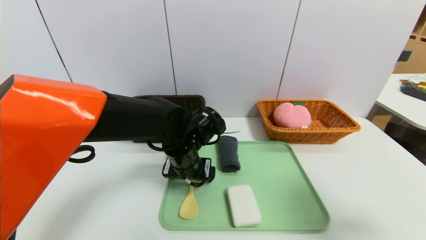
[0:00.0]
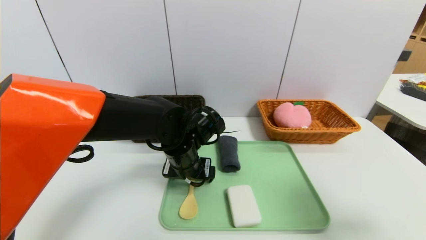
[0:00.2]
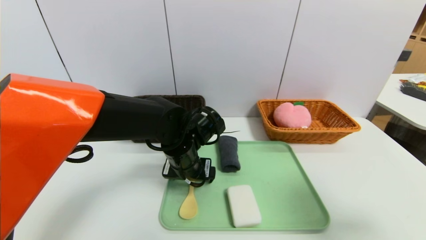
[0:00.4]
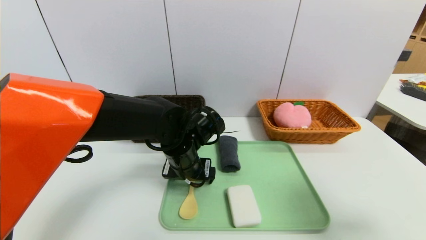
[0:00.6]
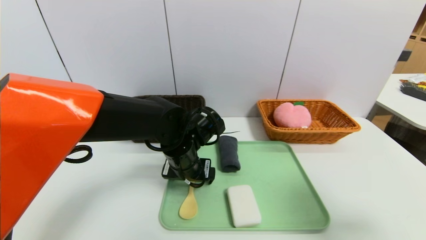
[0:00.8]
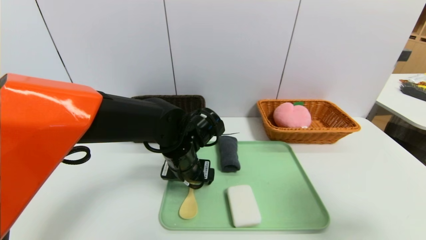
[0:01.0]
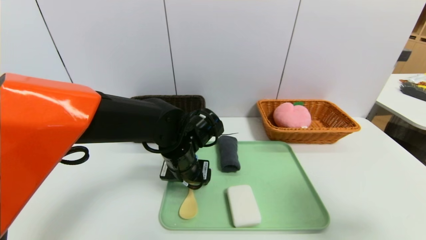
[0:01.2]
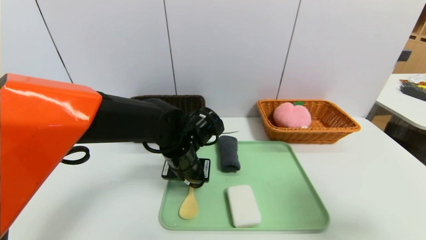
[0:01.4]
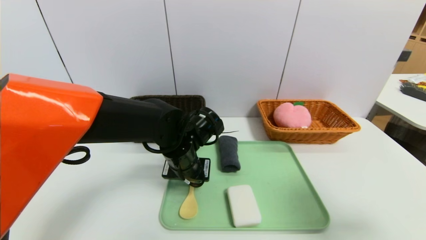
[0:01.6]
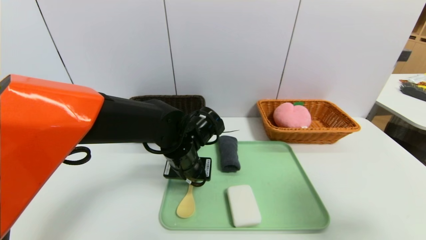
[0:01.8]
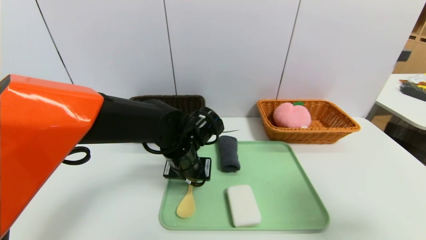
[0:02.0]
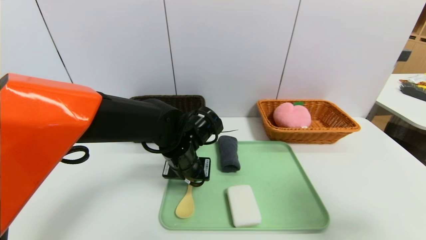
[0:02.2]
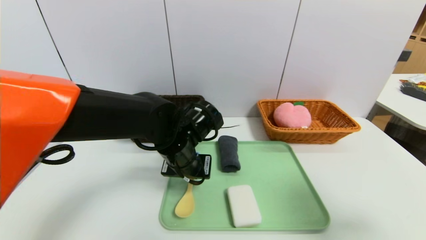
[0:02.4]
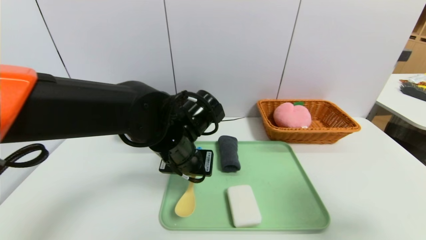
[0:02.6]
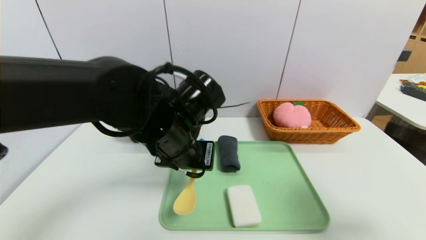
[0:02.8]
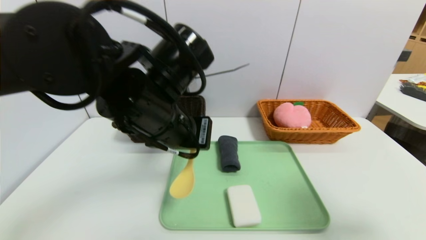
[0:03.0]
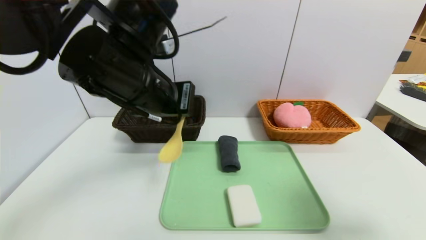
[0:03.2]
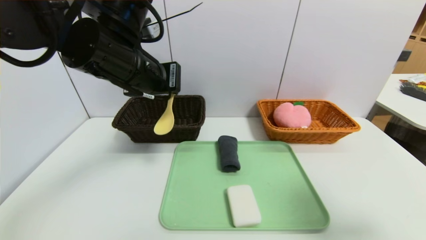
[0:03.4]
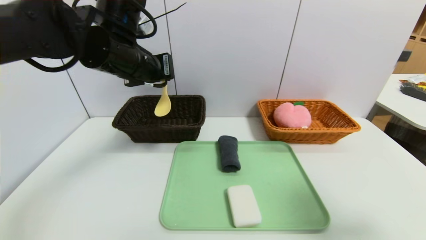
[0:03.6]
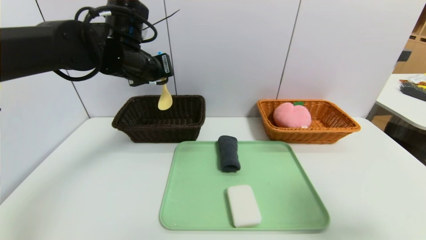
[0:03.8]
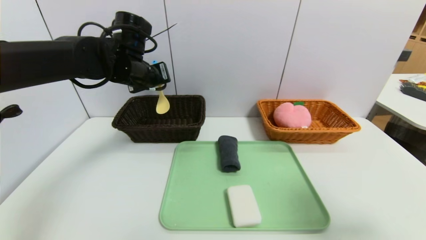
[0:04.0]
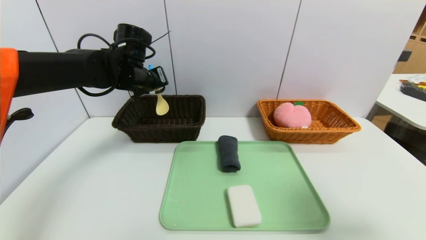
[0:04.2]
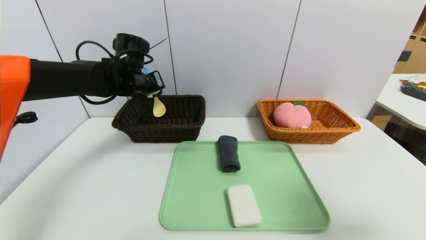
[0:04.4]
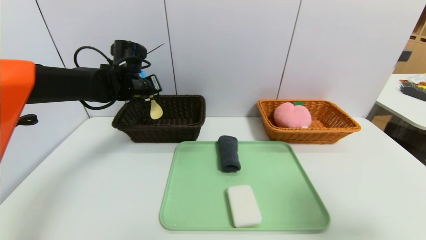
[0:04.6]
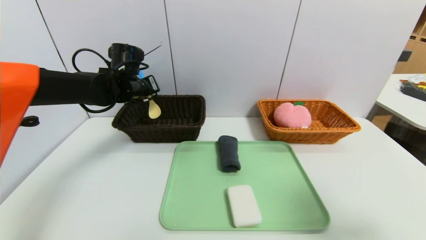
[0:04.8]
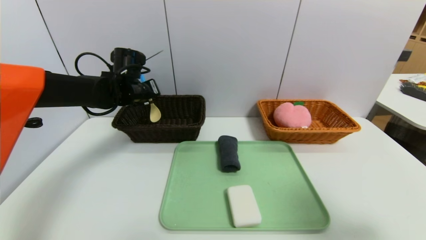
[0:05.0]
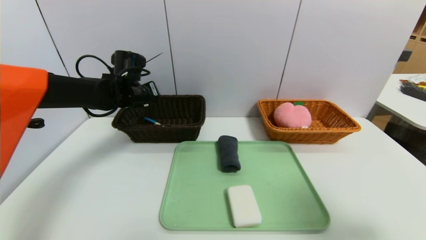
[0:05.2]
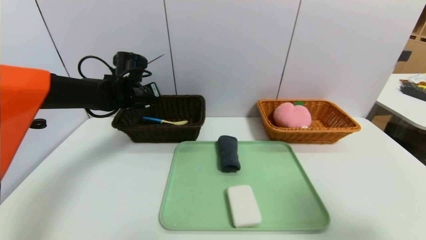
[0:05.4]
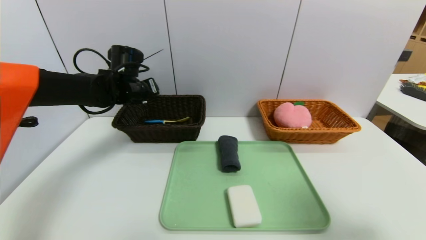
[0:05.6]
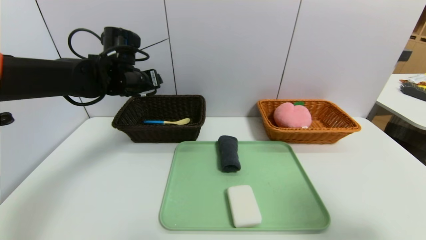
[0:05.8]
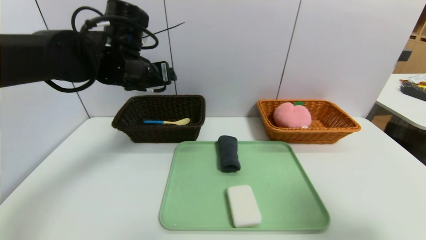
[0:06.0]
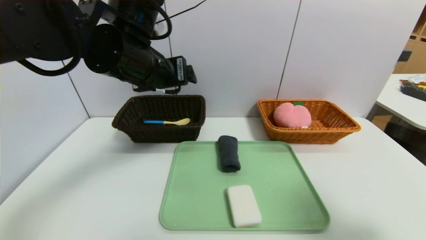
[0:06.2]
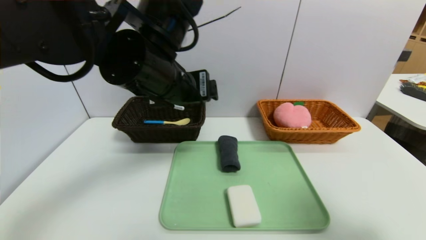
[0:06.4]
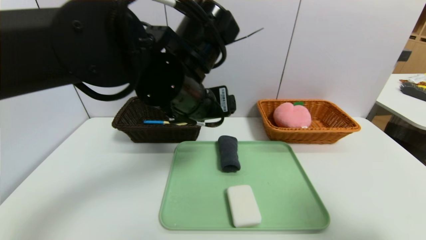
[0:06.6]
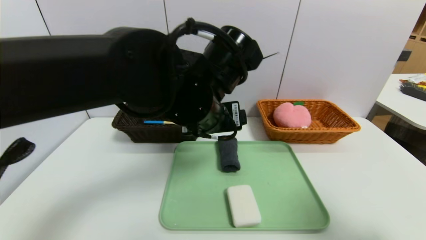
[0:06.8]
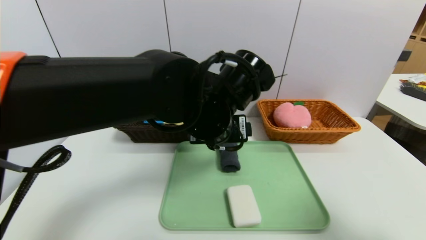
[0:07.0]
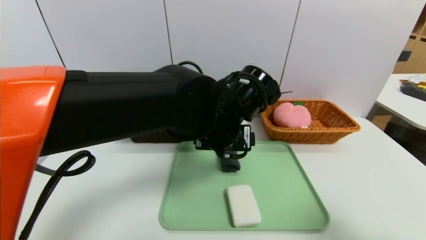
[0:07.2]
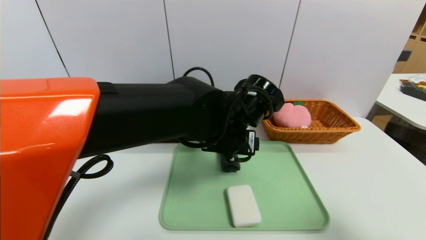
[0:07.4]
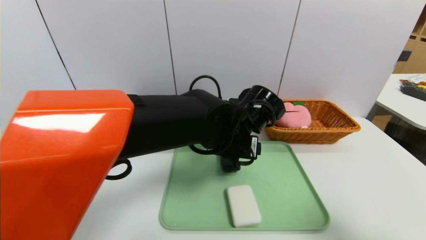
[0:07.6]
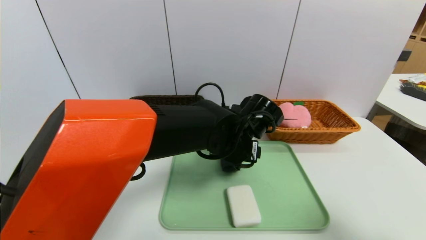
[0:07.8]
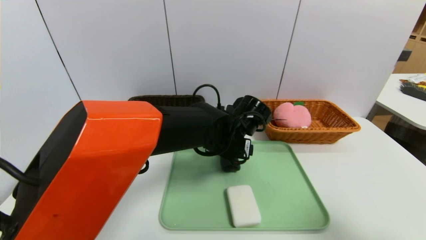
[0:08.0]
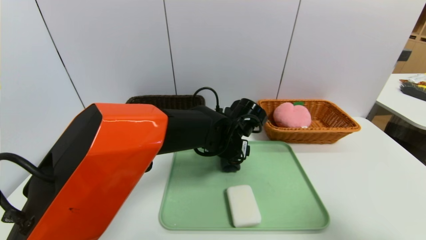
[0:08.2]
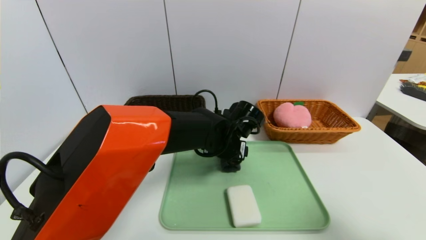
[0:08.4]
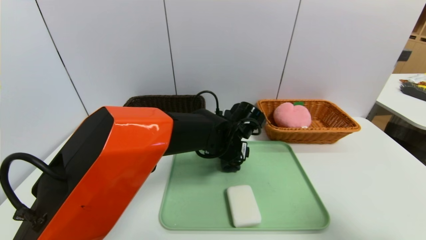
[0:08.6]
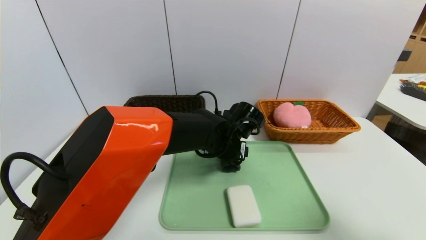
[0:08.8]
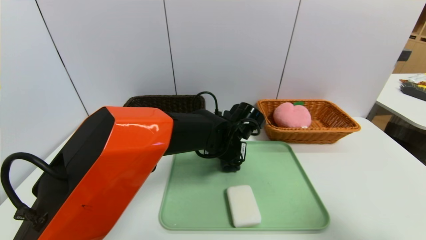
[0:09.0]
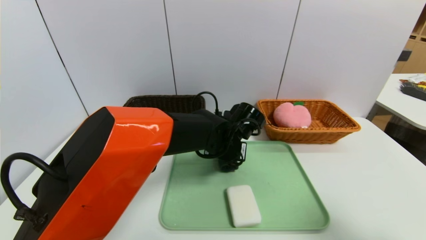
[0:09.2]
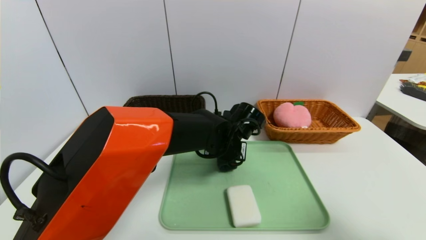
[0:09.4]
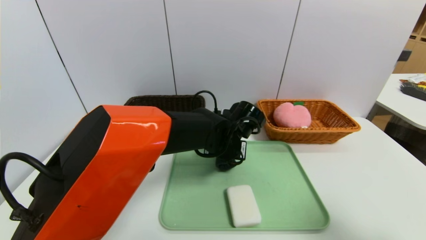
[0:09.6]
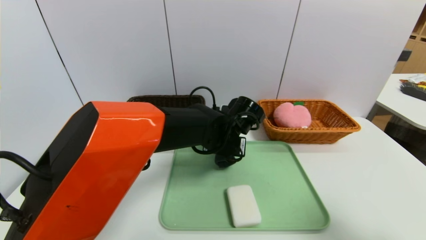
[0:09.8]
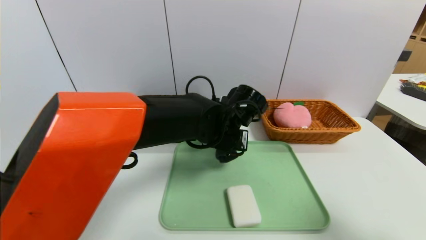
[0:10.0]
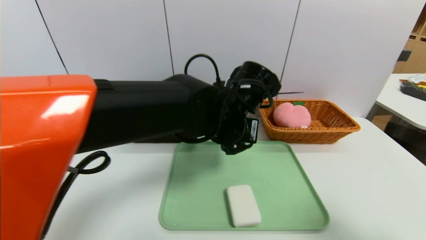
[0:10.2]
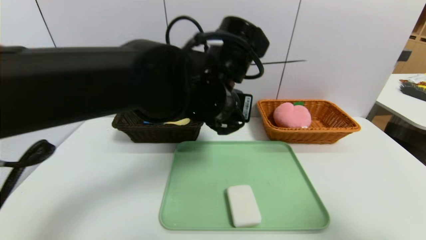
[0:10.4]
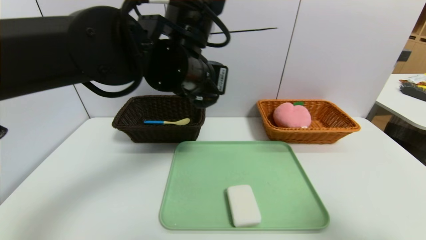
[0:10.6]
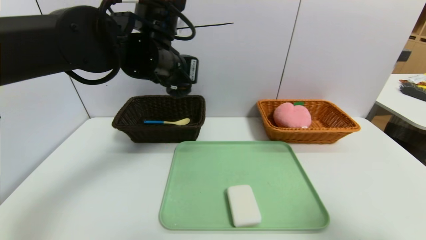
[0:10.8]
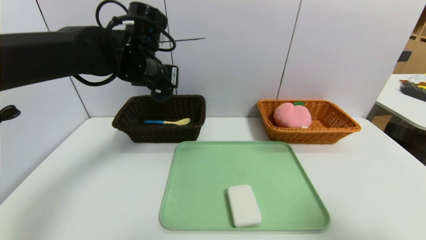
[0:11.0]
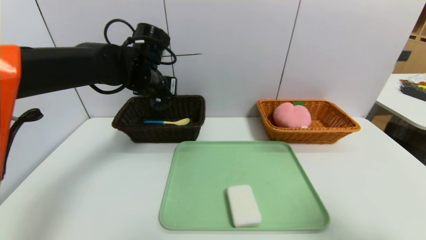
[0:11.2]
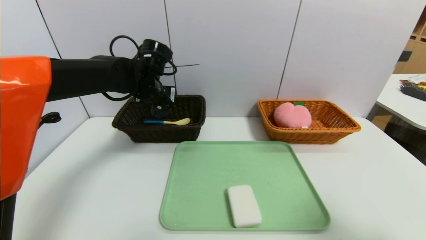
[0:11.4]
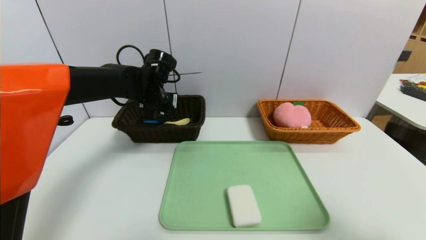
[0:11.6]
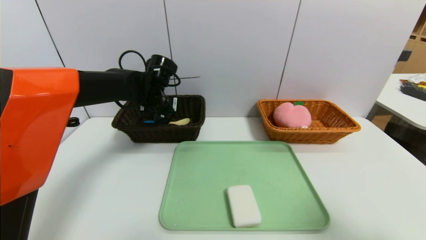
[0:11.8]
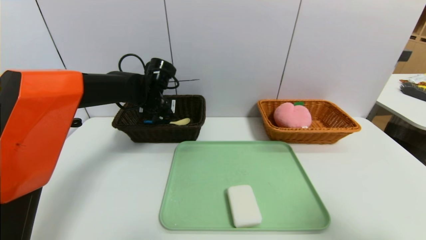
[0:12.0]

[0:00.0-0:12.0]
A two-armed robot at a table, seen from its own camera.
Task of the whole recording: place the food in the right basket with the right gripper, and place the non food items in the left basket with the left gripper.
Step, 0:00.0 to 0:05.6: Grasp the spoon and put it in the left basket.
0:00.0 to 0:01.6: The left gripper closes.
0:01.6 to 0:03.0: The left gripper moves upward and backward, about 15 cm.
0:03.0 to 0:04.4: The left gripper goes roughly 20 cm forward and to the left.
0:04.4 to 0:06.0: The left gripper heads backward and upward, covering about 10 cm, and opens its fingers.
0:06.0 to 0:07.6: The left gripper moves to the right and downward, approximately 20 cm.
0:07.6 to 0:09.0: The left gripper is displaced downward and forward by about 5 cm.
0:09.0 to 0:10.4: The left gripper travels upward and backward by about 15 cm, and closes up.
0:10.4 to 0:12.0: The left gripper is displaced forward, to the left and downward by roughly 25 cm.

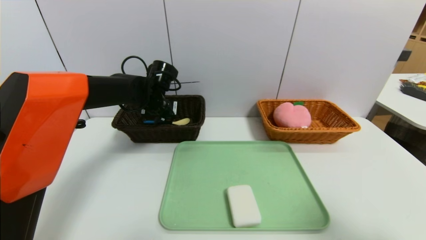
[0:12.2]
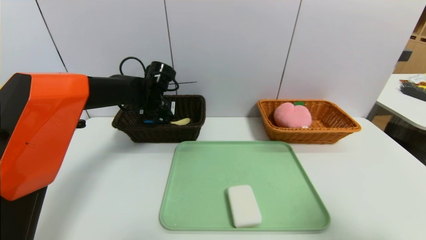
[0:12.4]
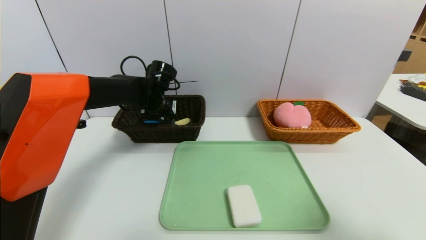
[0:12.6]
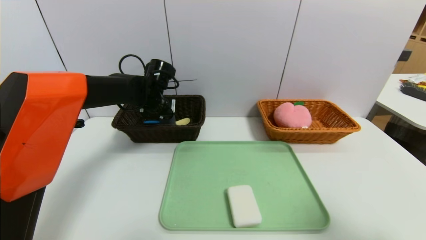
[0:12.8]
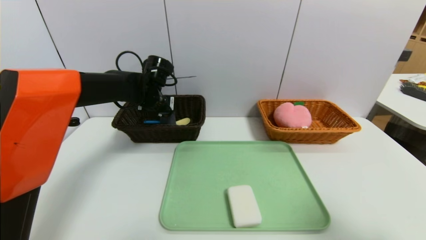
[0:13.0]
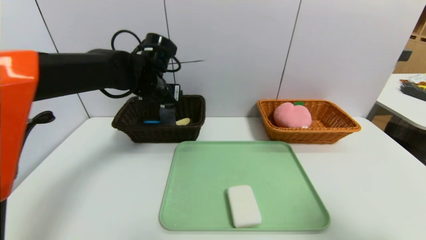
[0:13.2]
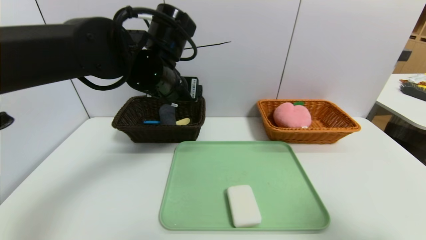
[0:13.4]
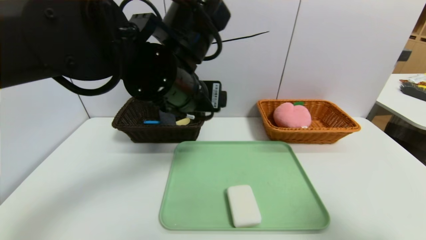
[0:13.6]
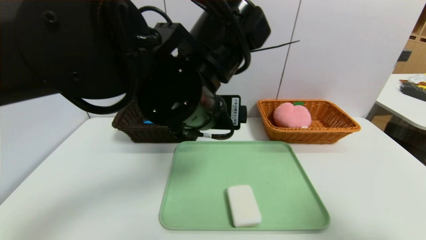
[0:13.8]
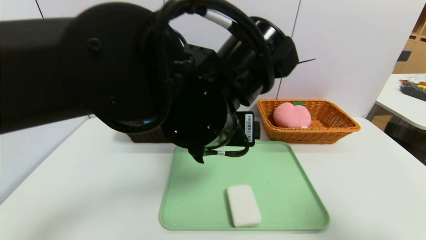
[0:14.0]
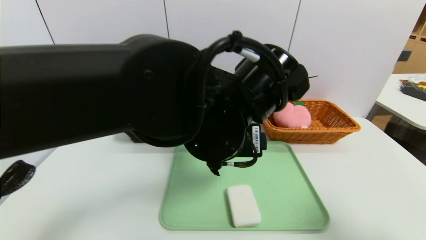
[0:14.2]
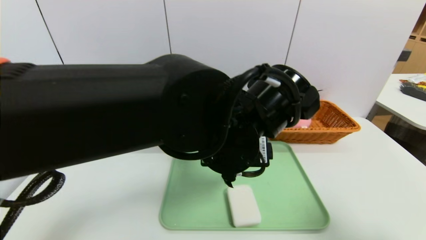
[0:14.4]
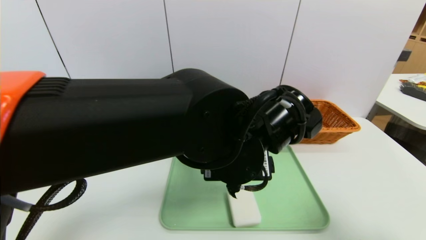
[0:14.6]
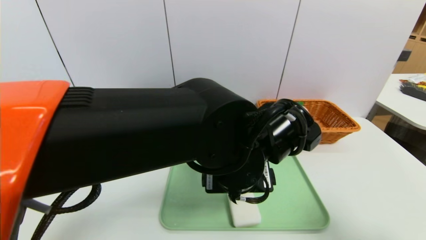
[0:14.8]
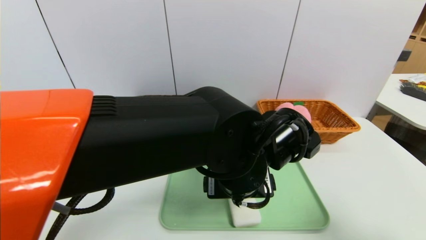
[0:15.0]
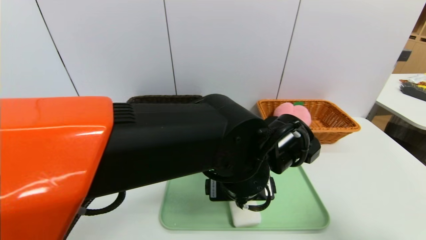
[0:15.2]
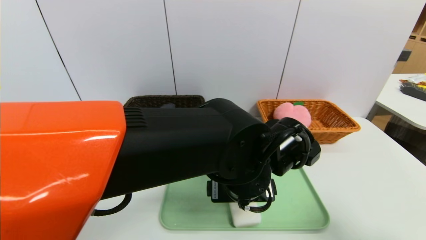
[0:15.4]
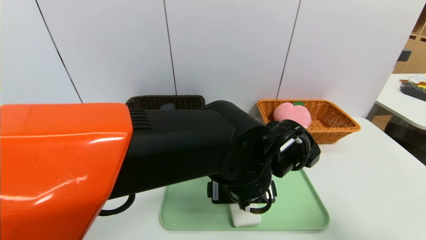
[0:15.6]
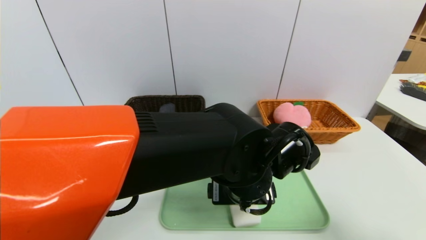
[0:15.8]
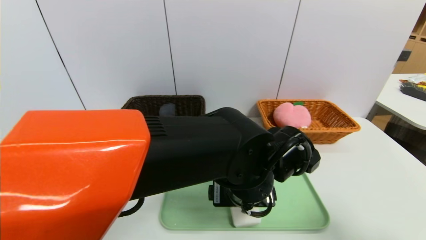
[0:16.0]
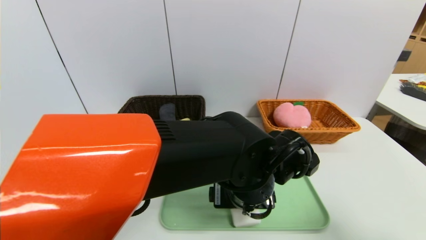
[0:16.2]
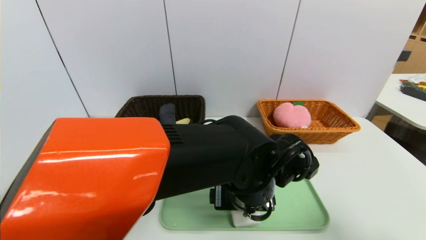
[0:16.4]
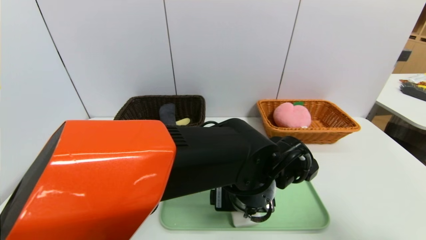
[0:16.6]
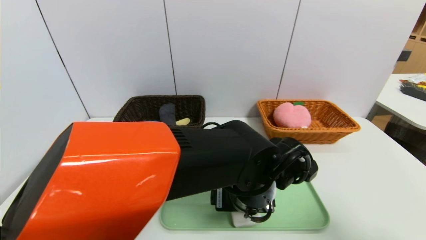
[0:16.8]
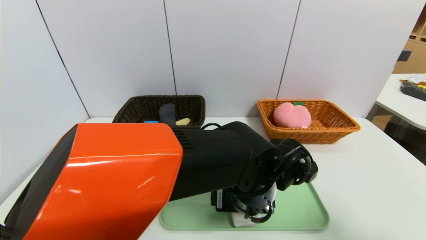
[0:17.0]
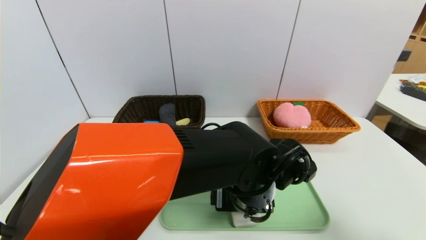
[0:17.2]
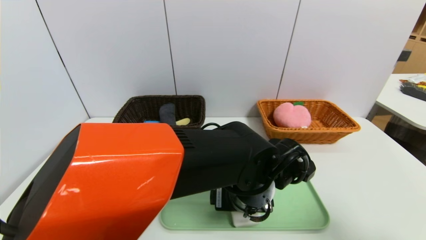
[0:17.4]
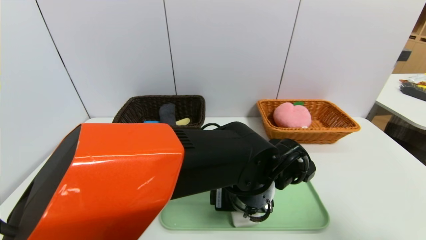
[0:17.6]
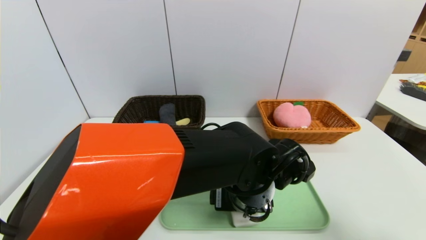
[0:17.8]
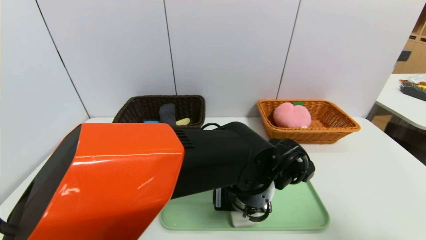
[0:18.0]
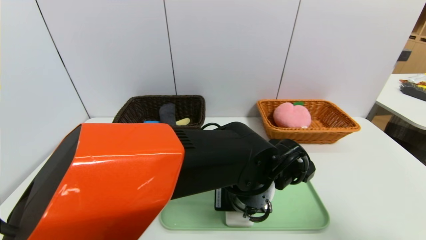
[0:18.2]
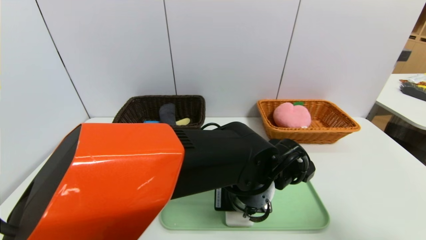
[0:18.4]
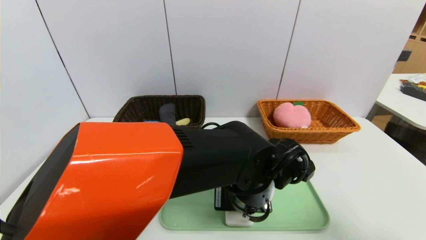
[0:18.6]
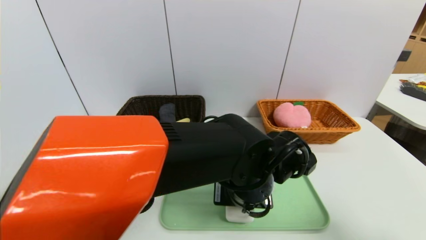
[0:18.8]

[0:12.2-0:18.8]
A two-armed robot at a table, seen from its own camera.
Task of the whole recording: place the food in the right basket with the right gripper, and place the non food items in the left basket with the left gripper.
0:12.2 to 0:13.8: The left gripper shifts some 30 cm backward, to the right and upward, and opens its fingers.
0:13.8 to 0:15.4: The left gripper heads downward and to the right, covering about 15 cm.
0:17.2 to 0:18.8: The left gripper closes its fingers.
